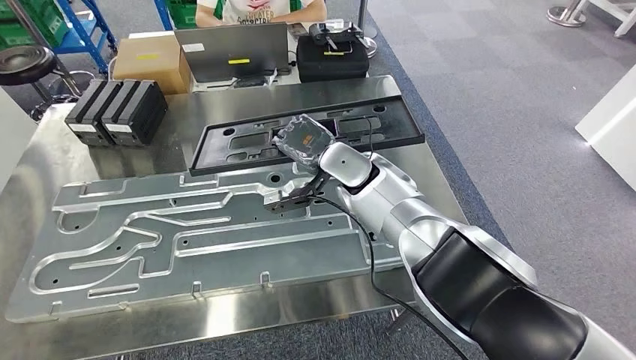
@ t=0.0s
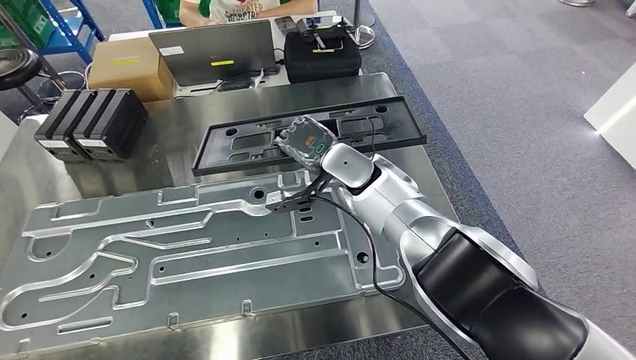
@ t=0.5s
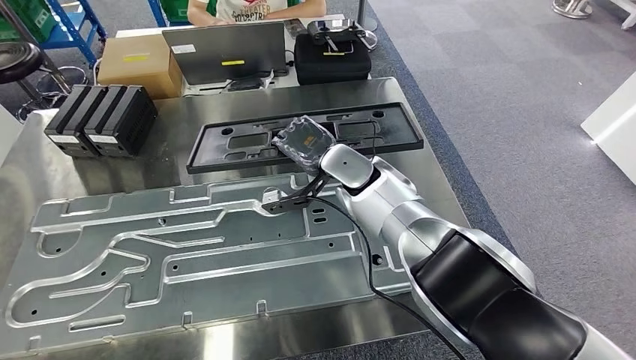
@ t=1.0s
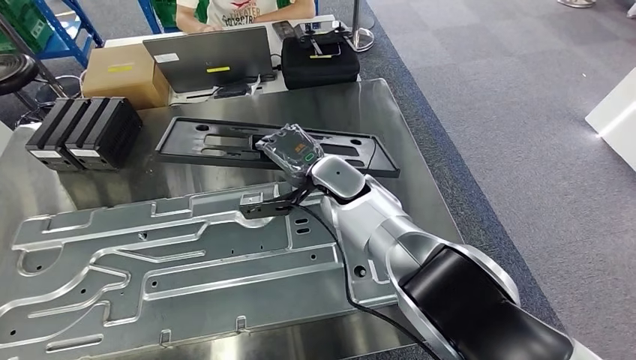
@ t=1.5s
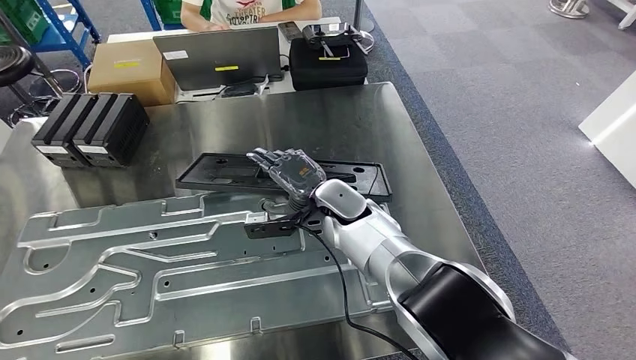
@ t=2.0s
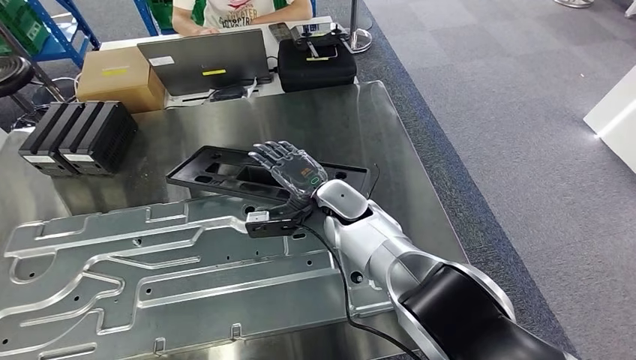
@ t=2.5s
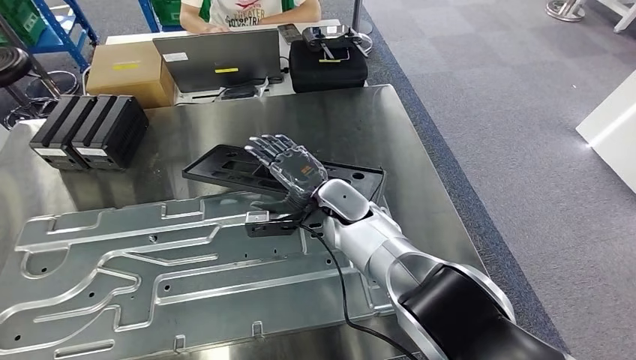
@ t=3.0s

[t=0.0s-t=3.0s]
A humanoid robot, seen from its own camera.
Step, t=0.0s to t=3.0s: Insert the large material into the corresponding slot on the workbench.

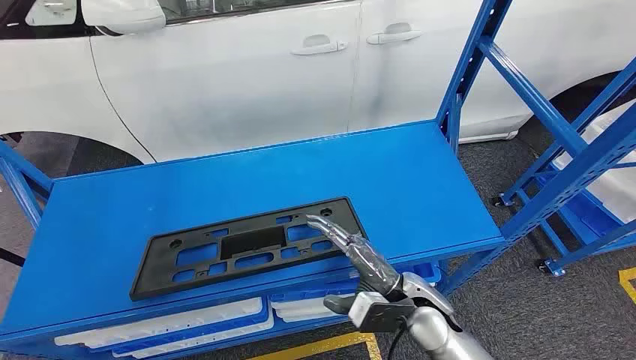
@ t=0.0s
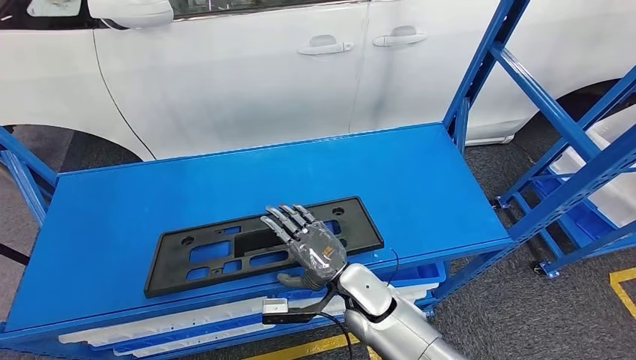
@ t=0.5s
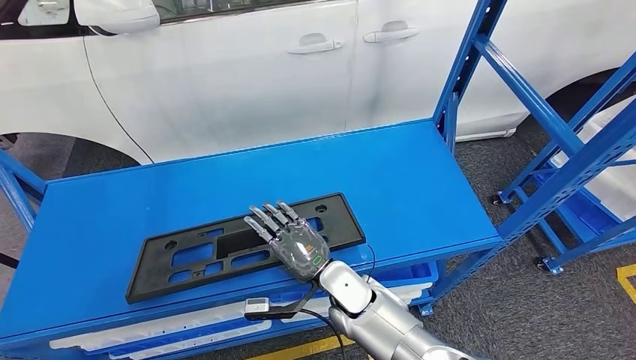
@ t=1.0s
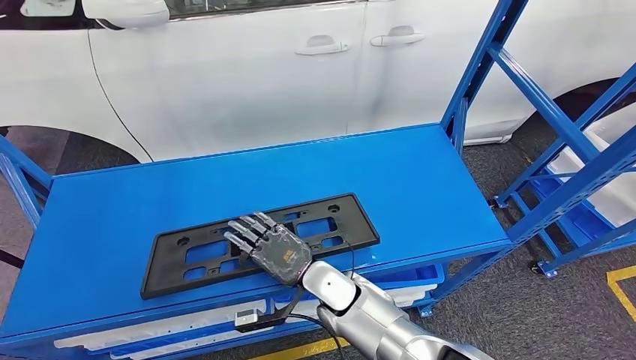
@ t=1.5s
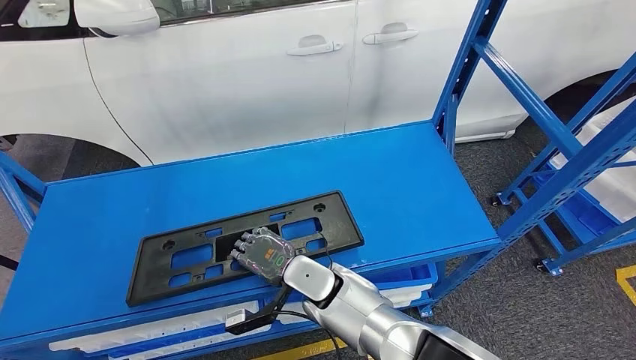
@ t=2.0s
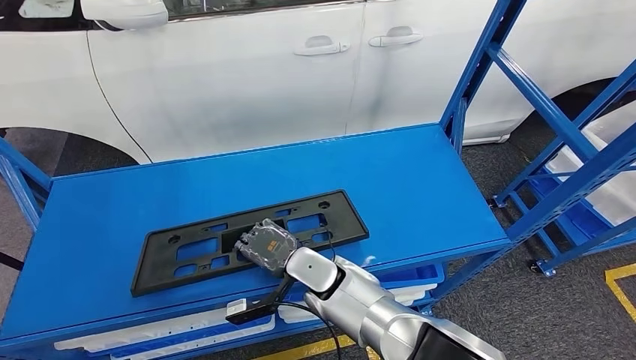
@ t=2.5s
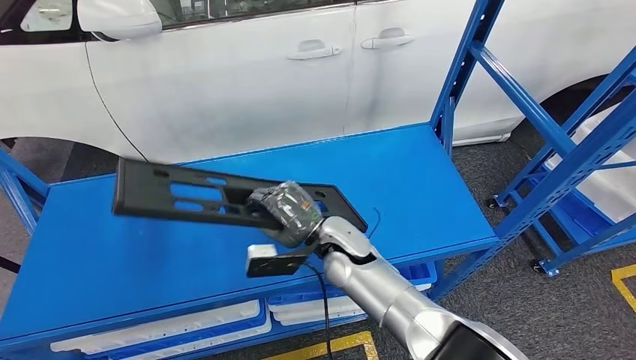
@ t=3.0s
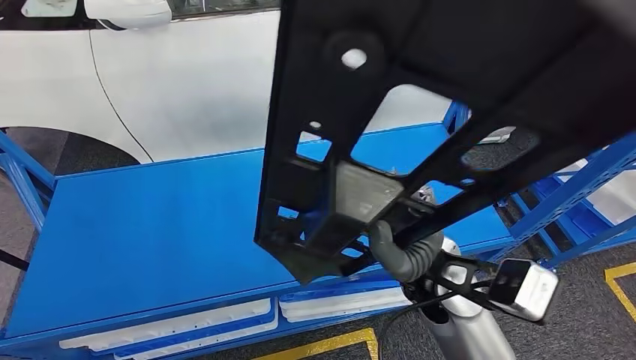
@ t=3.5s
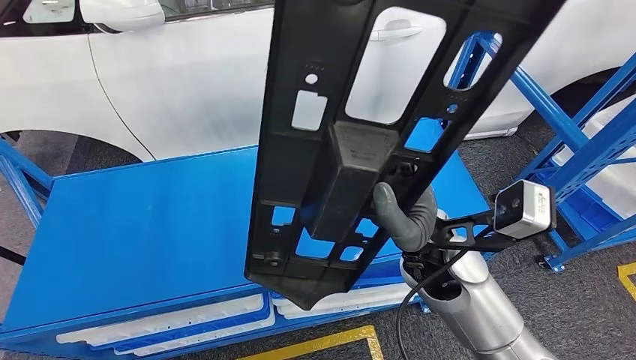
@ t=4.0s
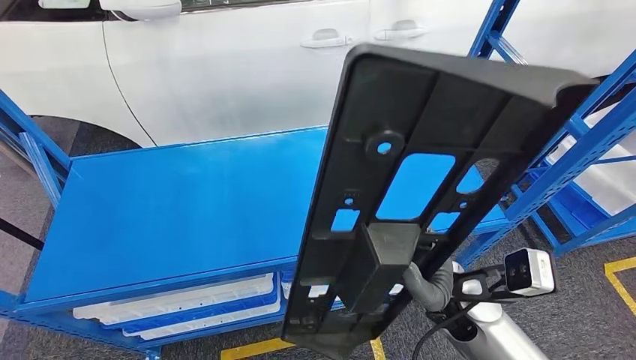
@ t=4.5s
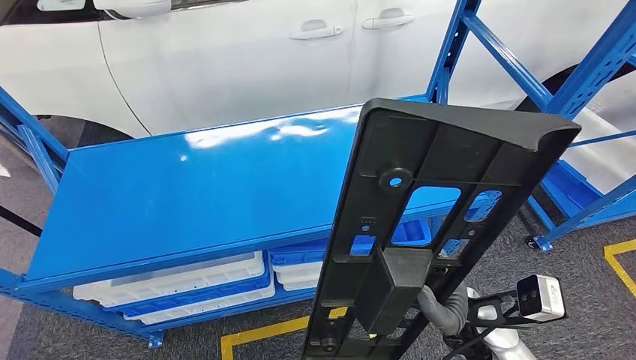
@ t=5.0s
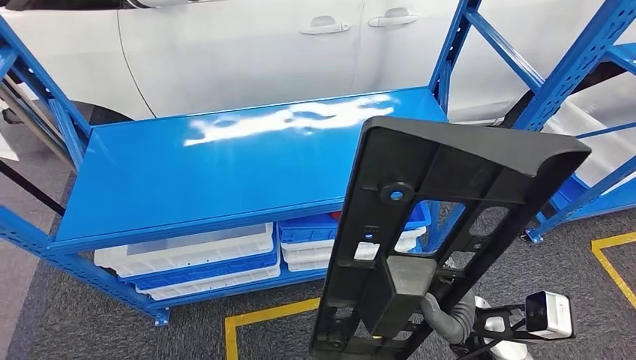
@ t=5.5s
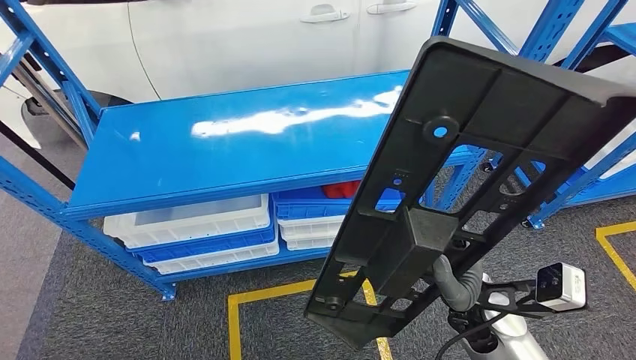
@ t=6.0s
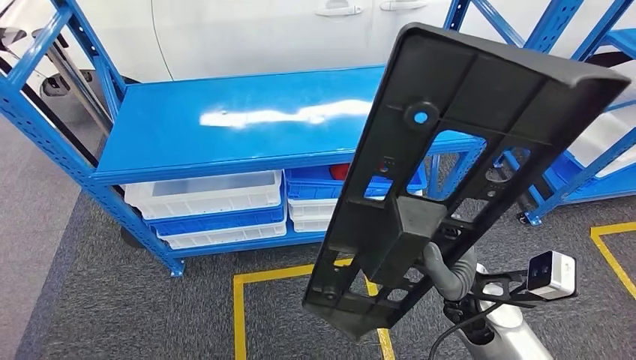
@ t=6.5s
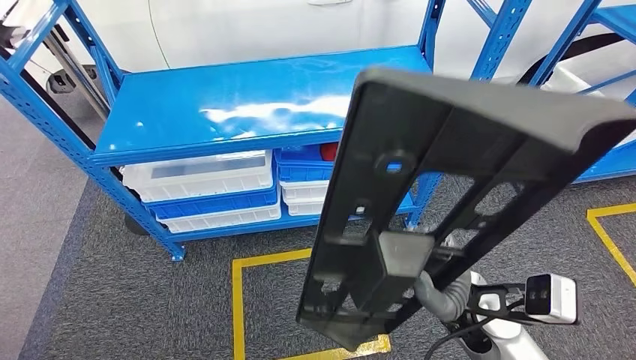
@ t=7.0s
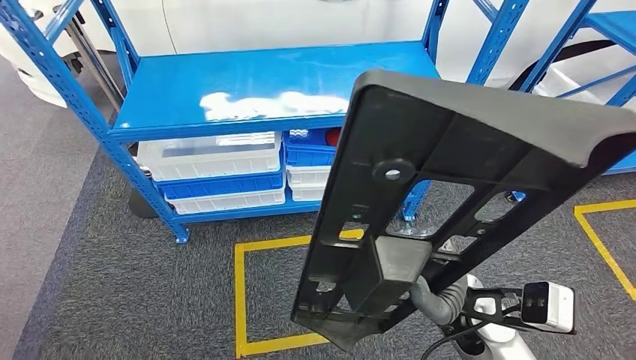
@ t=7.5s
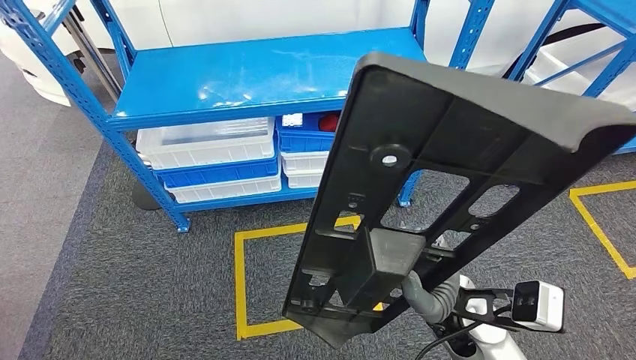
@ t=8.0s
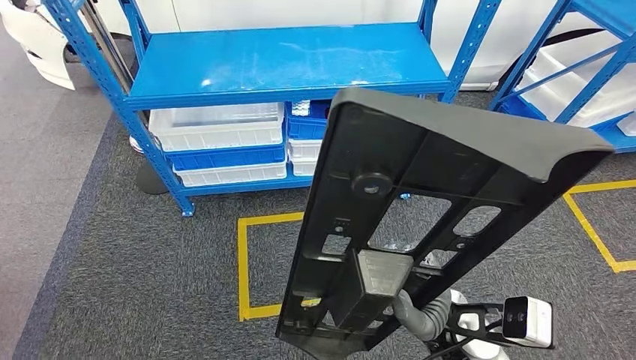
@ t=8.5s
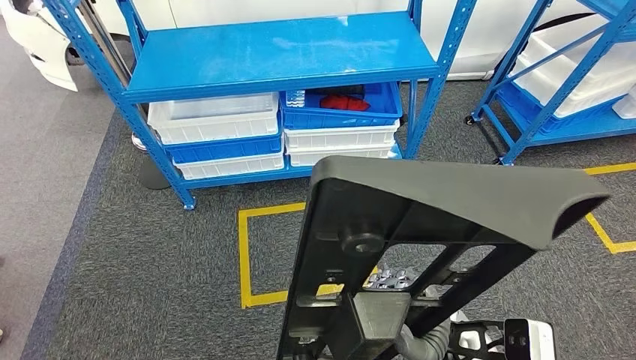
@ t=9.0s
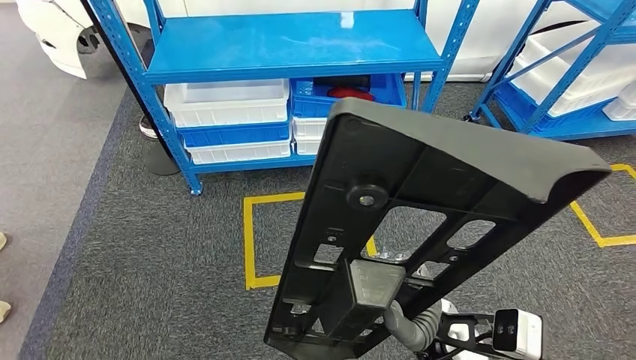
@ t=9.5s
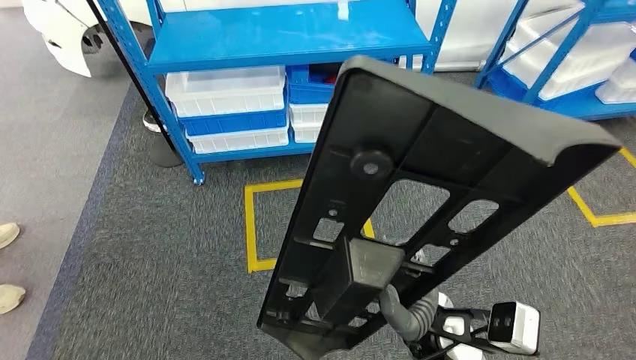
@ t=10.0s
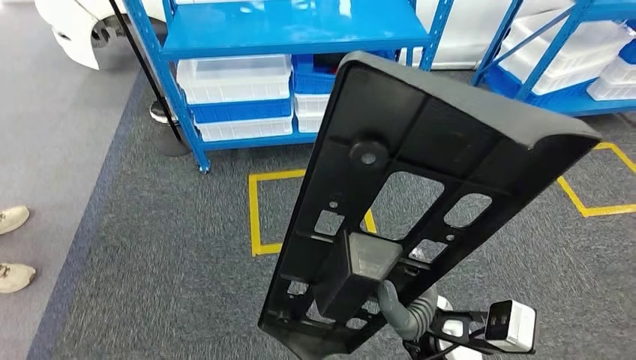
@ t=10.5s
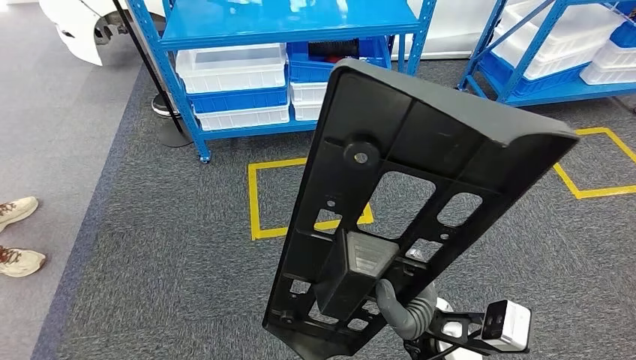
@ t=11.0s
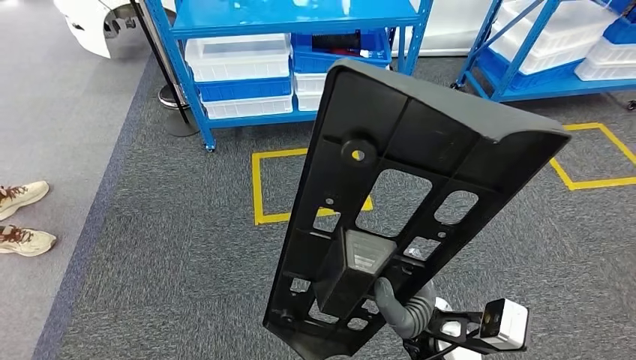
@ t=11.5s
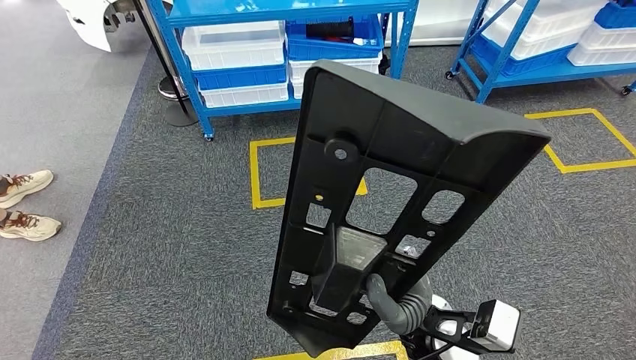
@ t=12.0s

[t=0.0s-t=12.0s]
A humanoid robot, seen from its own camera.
Step, t=0.0s to t=4.0s: Pick up the large material from the shelf.

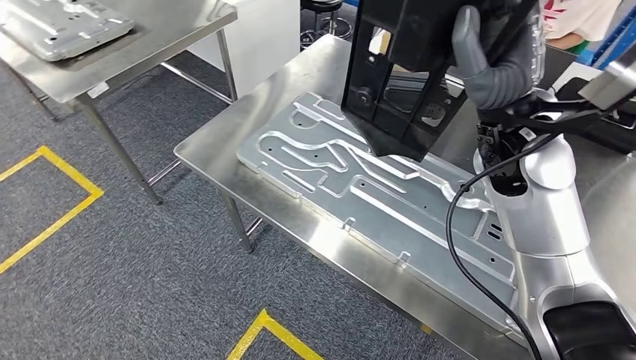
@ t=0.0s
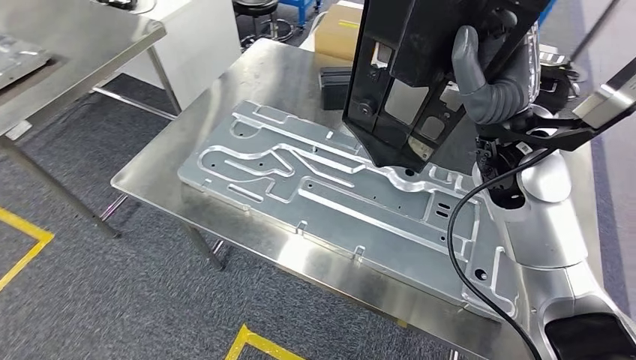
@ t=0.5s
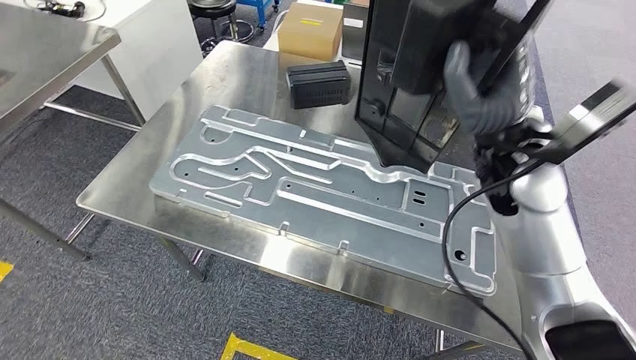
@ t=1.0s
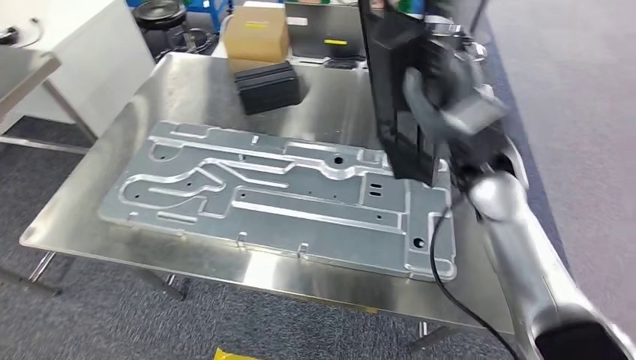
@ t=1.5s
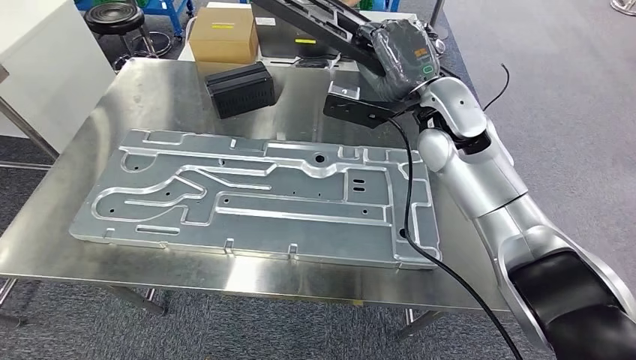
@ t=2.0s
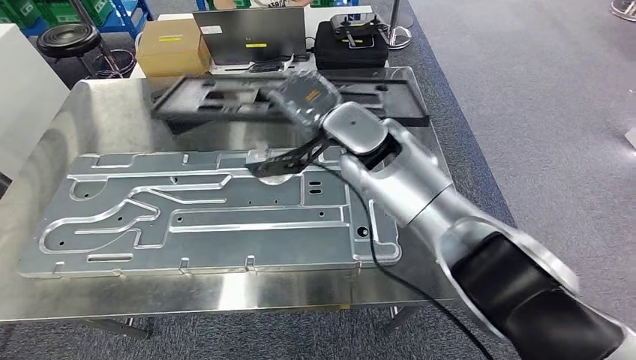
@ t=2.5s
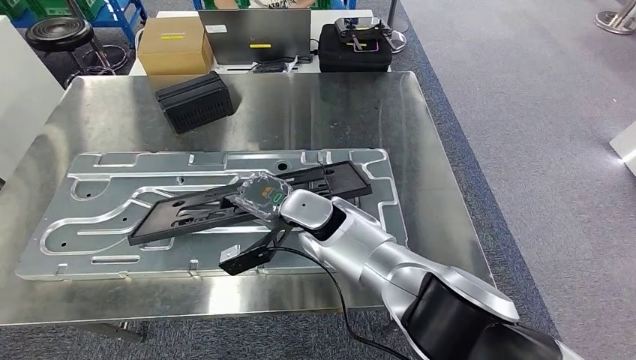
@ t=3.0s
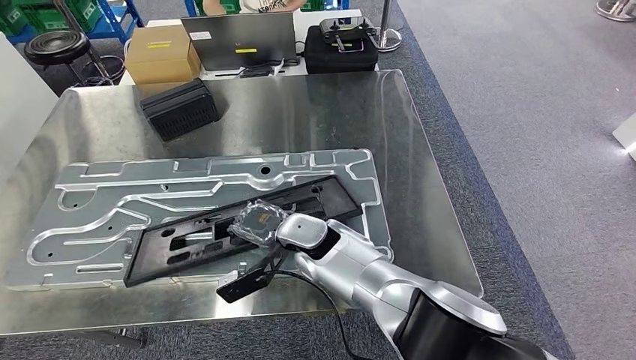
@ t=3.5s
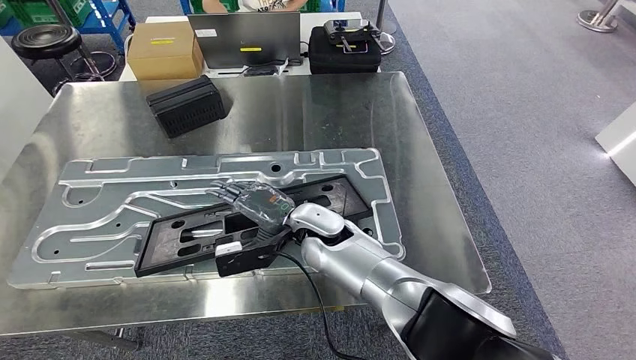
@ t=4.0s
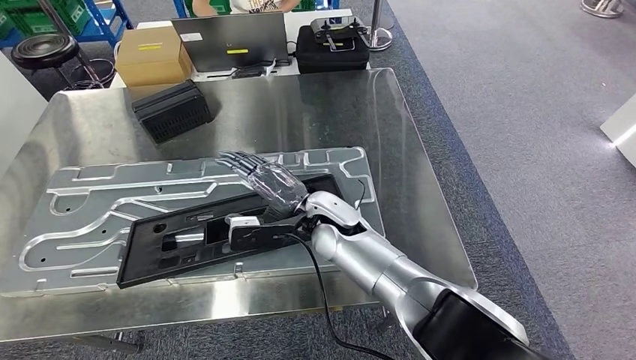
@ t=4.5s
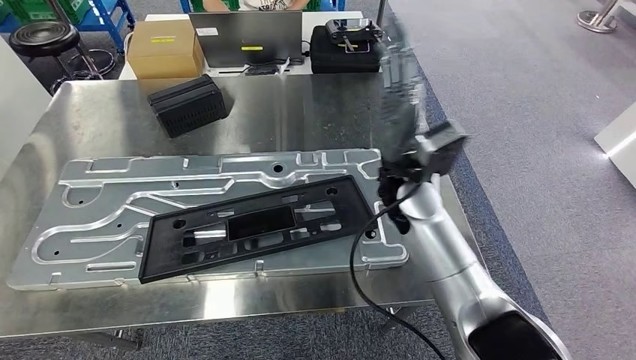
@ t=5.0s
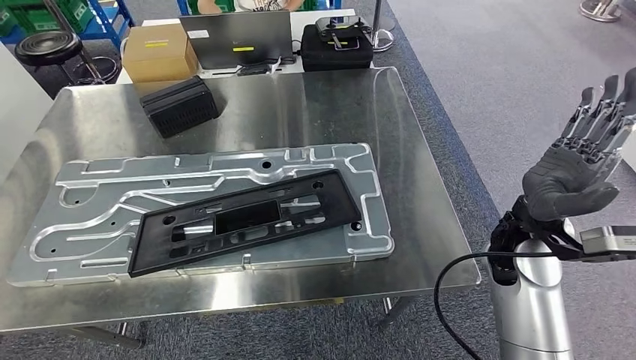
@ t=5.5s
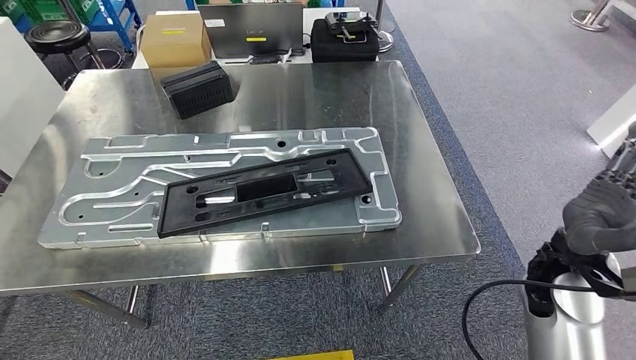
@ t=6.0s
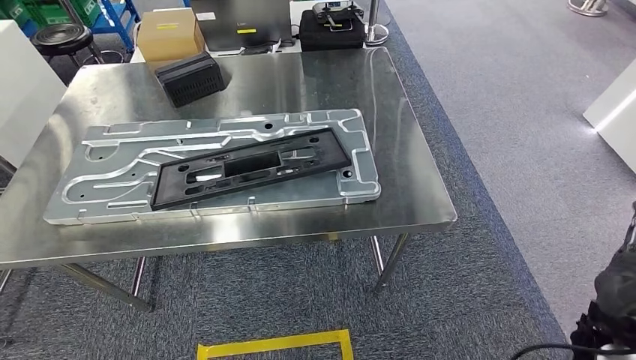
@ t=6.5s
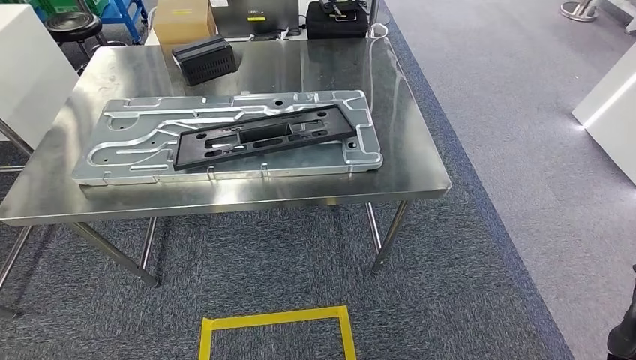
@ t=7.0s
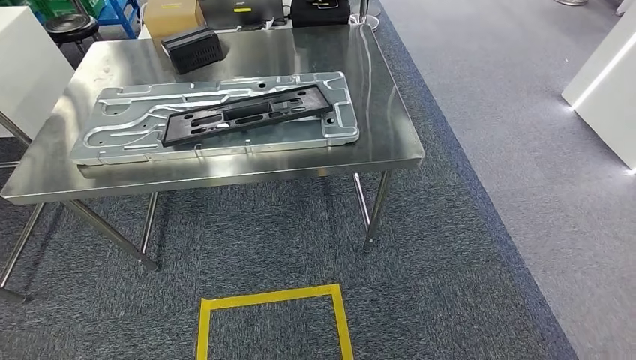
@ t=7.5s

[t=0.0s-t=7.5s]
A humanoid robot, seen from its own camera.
Step, t=0.0s to t=3.0s: Move the large material to the workbench.
Step, t=3.5s to t=5.0s: Insert the large material into the corresponding slot on the workbench.
